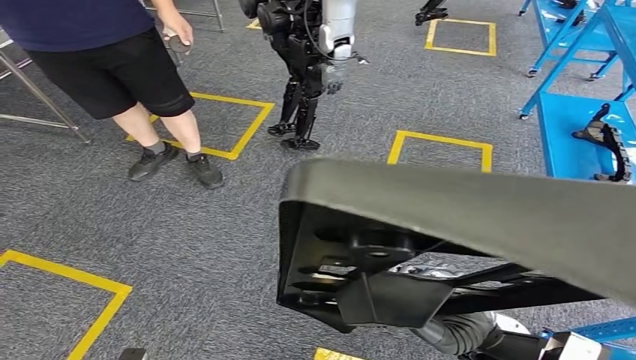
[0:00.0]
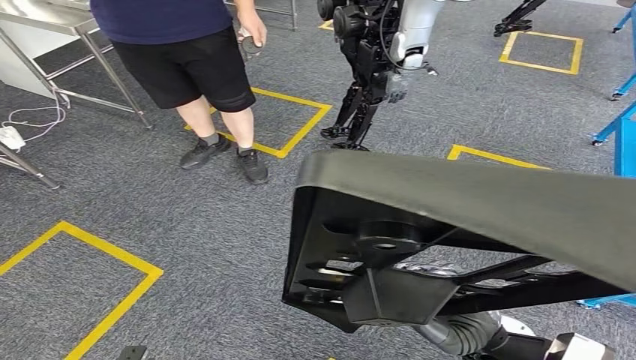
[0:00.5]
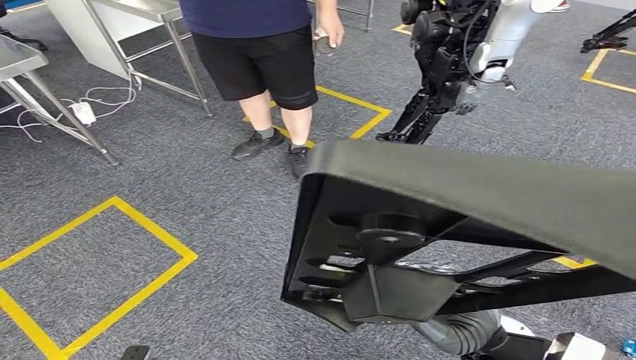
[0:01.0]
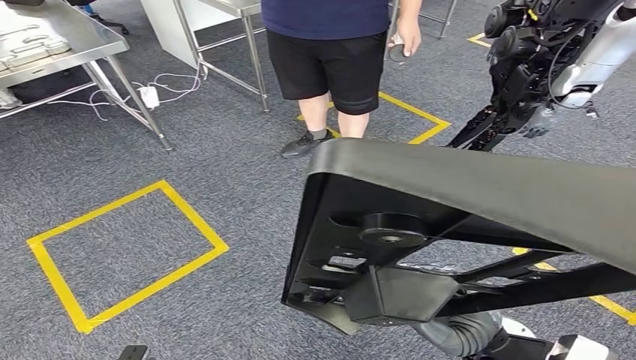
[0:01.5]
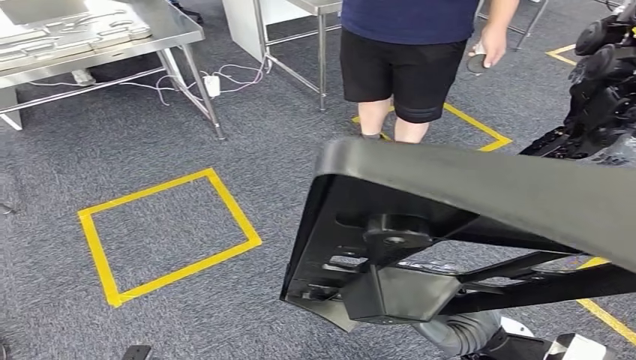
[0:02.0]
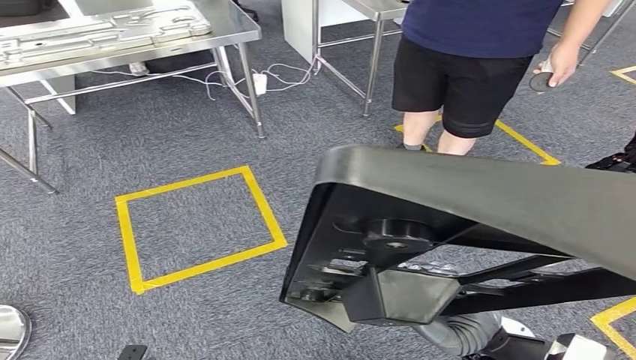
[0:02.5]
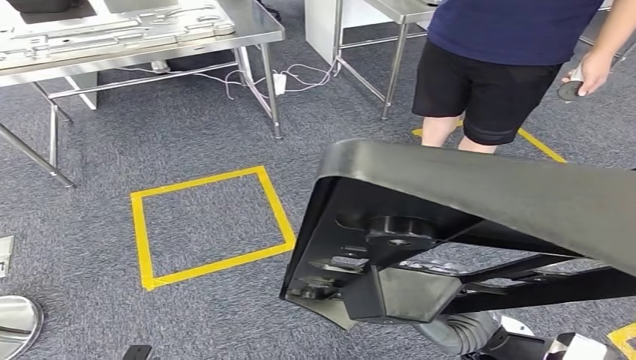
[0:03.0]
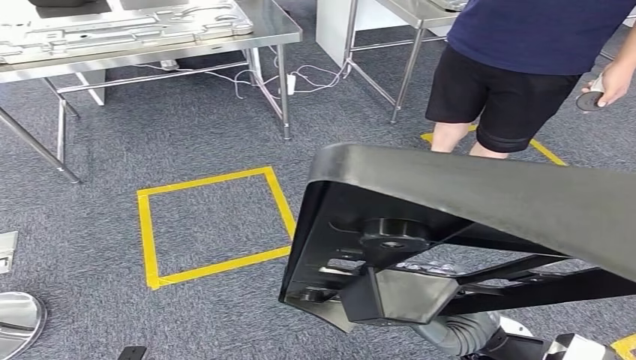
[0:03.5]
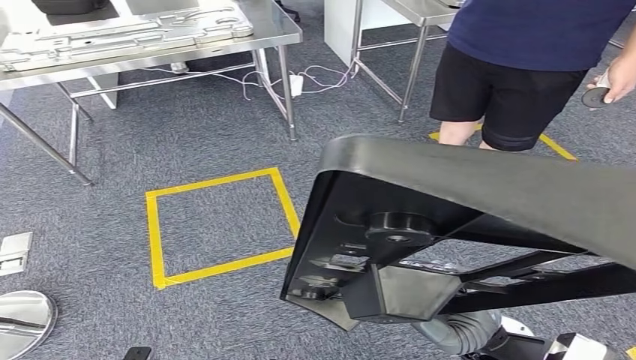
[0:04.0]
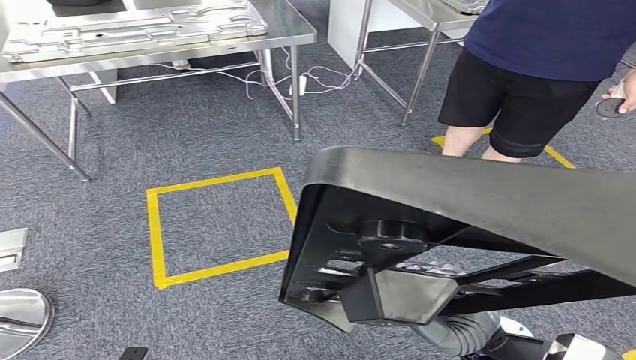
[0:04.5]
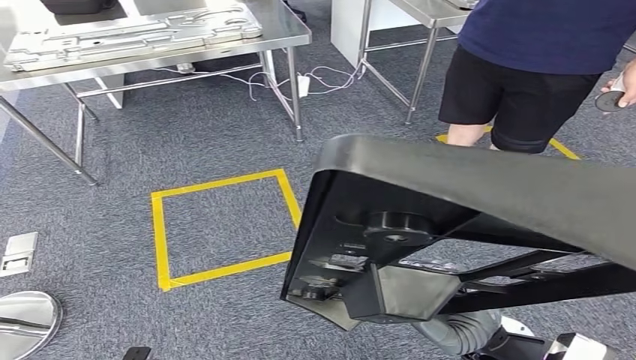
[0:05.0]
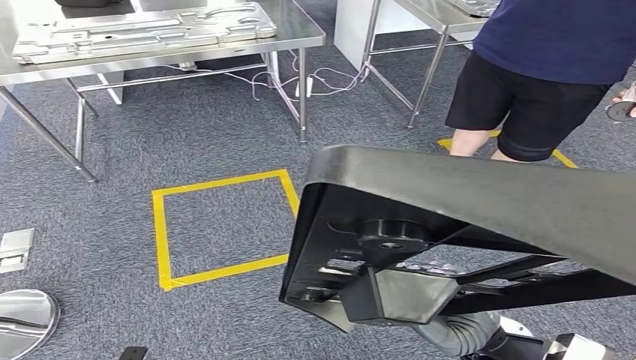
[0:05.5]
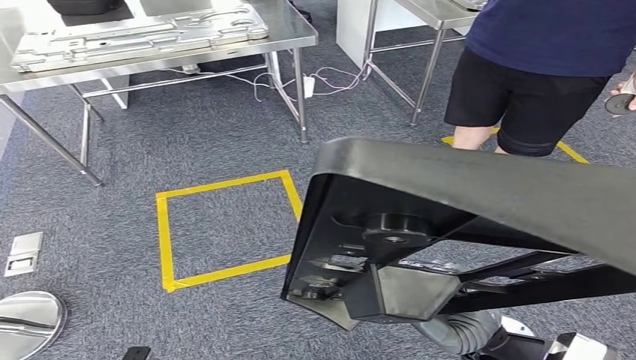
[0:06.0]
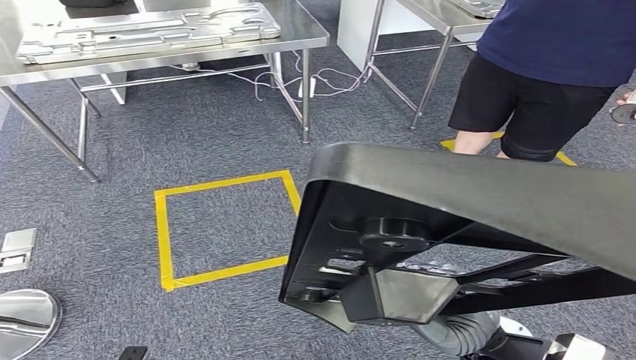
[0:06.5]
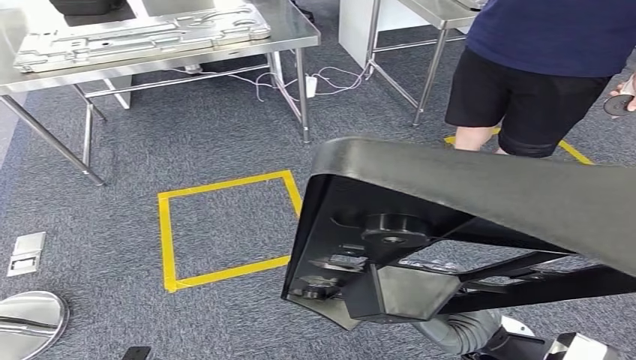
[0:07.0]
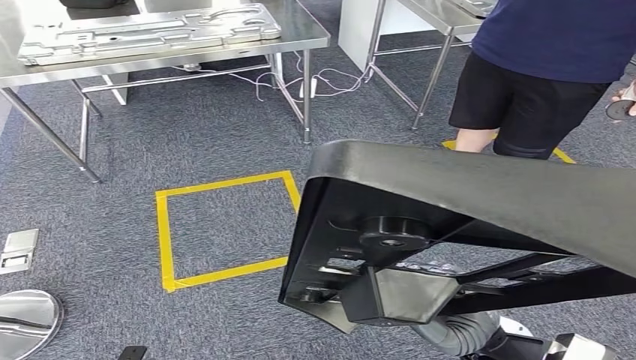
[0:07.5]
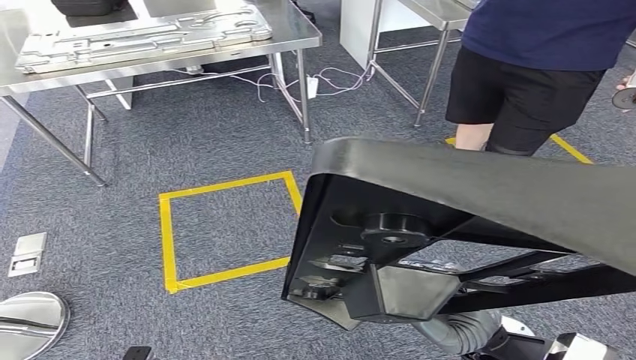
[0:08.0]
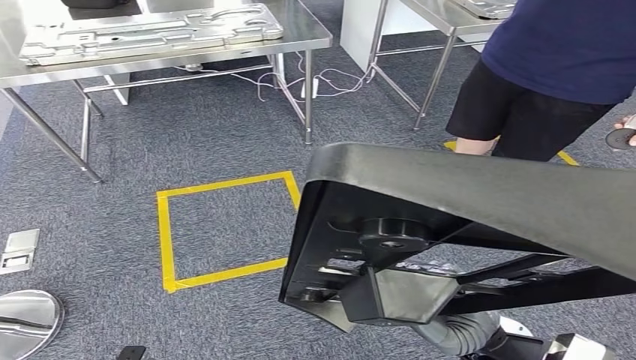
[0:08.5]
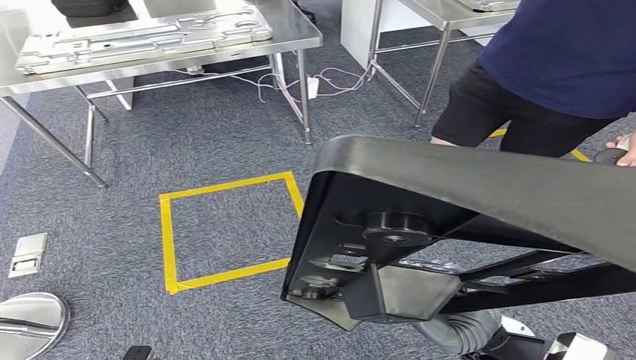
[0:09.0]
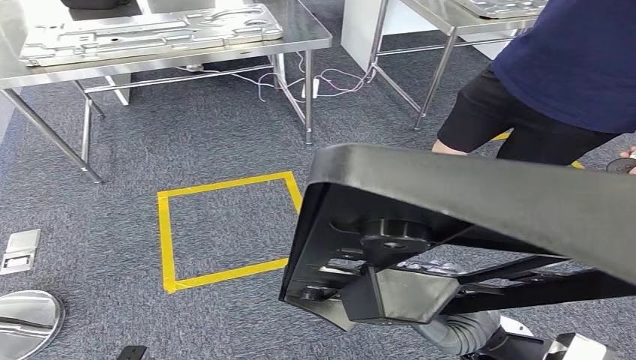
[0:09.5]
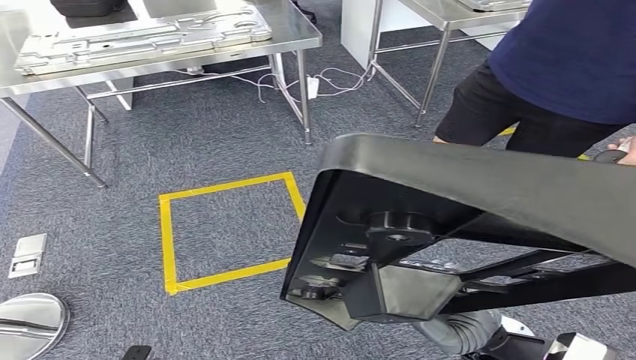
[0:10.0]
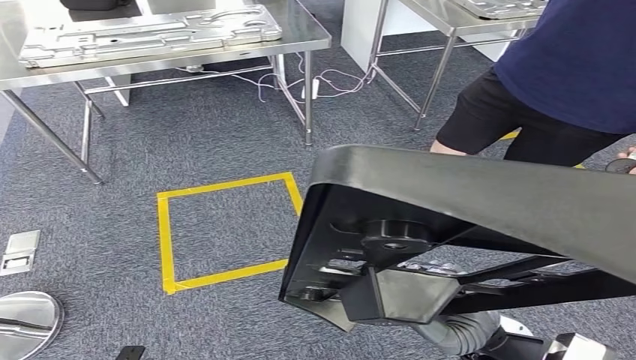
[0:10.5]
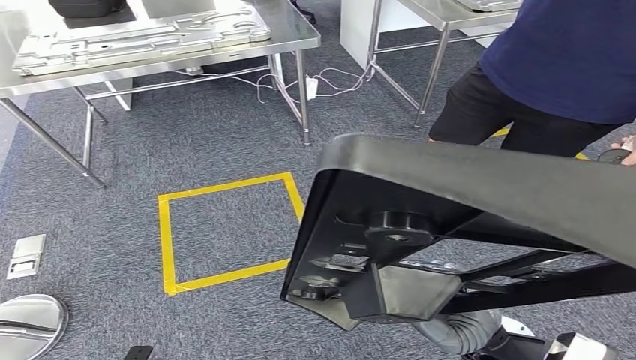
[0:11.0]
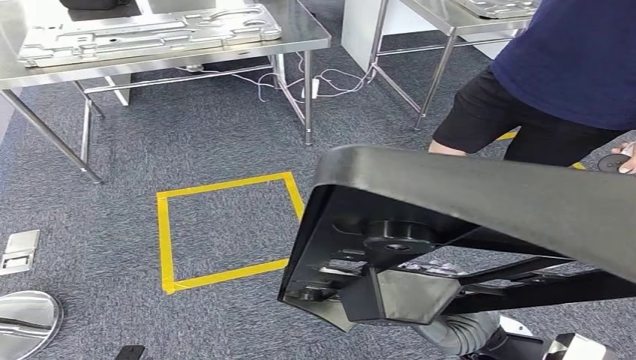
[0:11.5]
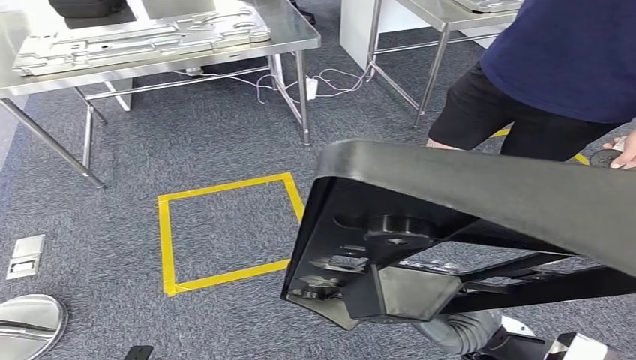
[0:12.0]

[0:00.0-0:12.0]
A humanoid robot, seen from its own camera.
0:06.0 to 0:12.0: The two hands keep their place.

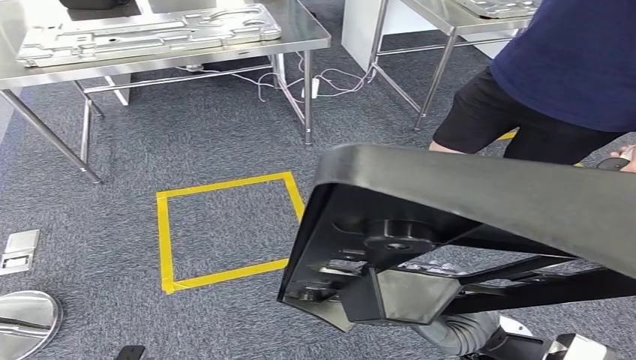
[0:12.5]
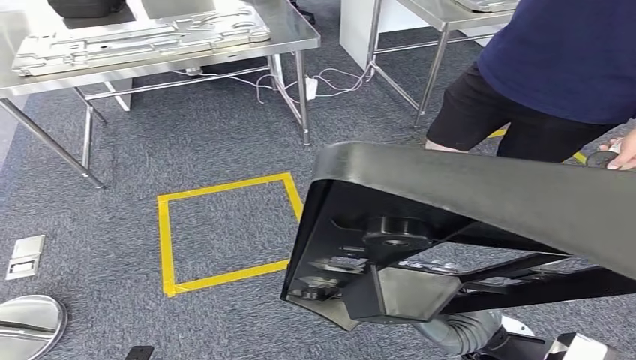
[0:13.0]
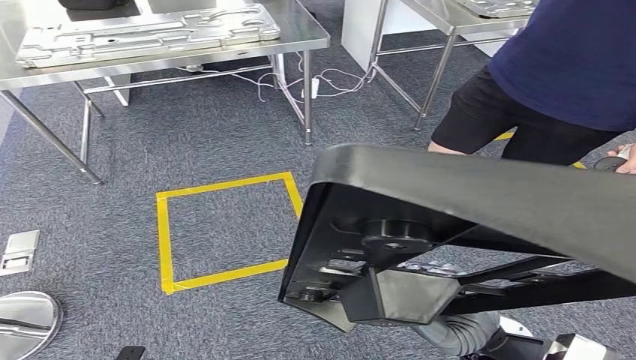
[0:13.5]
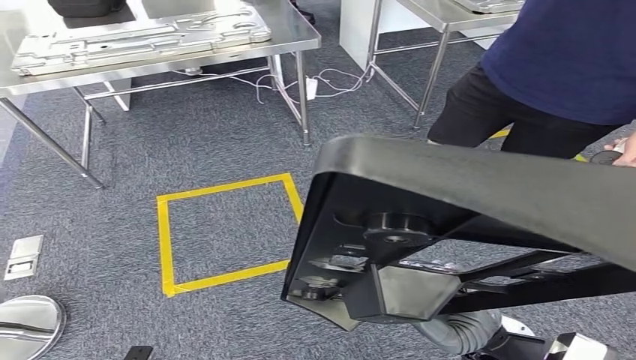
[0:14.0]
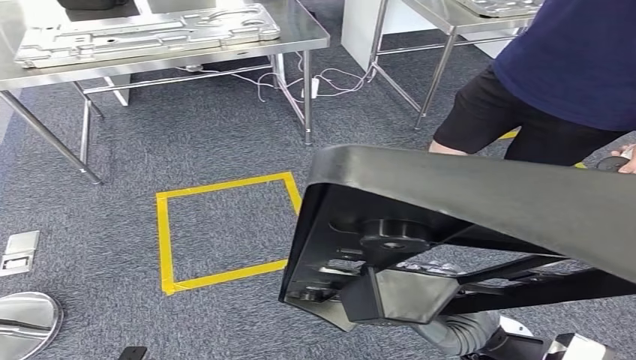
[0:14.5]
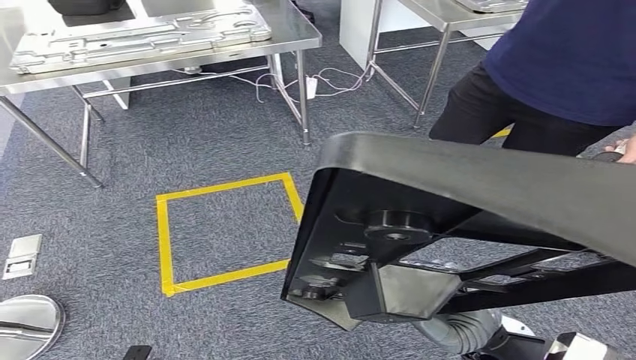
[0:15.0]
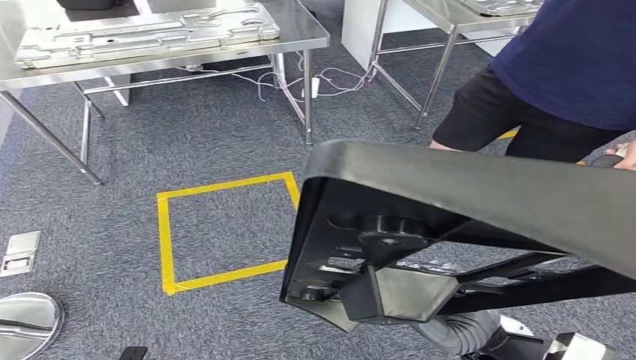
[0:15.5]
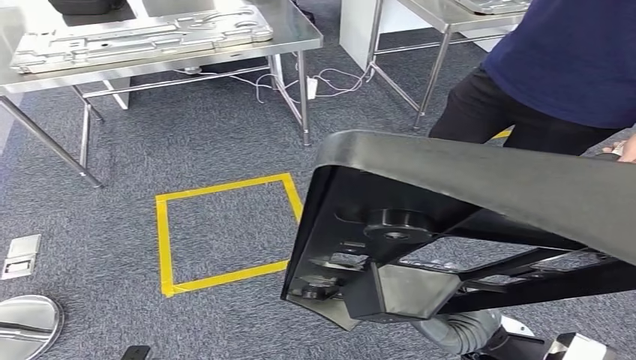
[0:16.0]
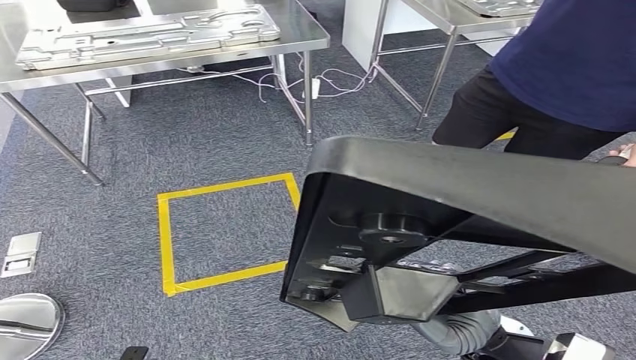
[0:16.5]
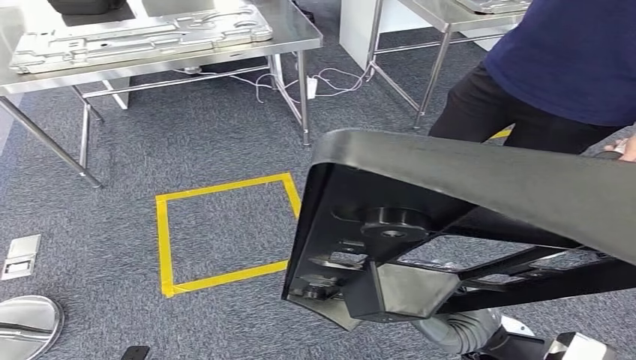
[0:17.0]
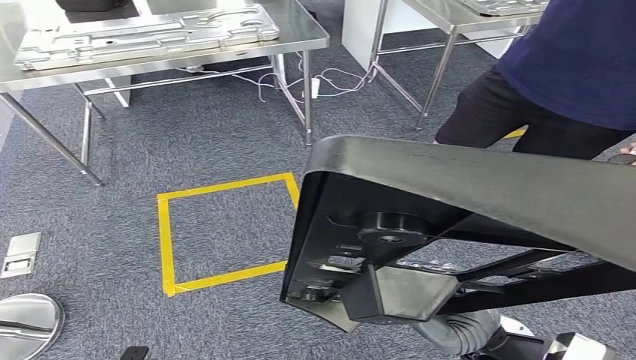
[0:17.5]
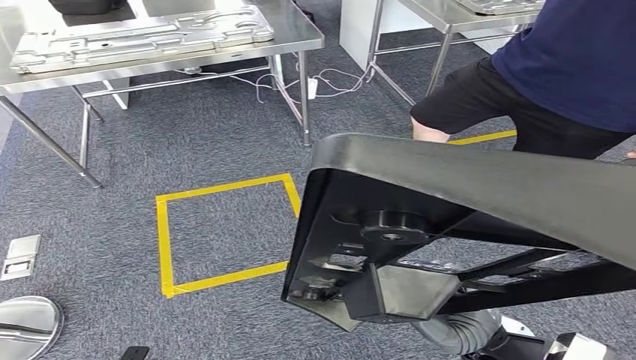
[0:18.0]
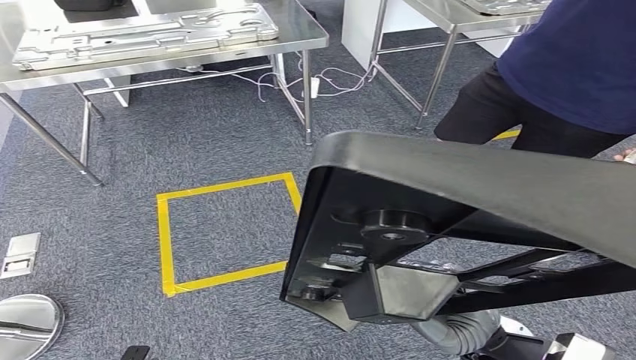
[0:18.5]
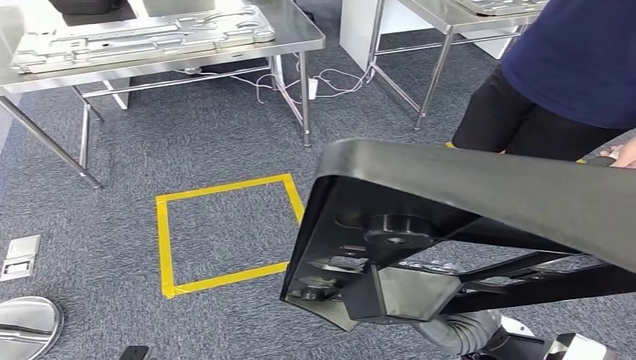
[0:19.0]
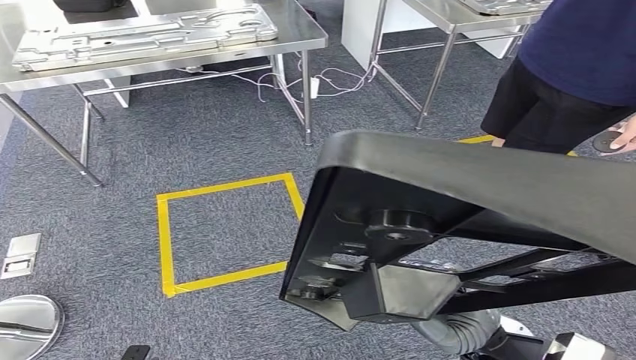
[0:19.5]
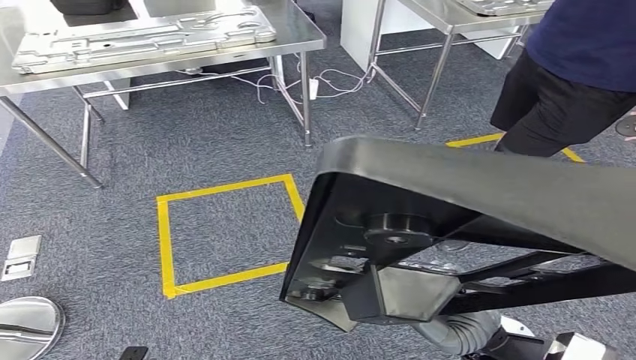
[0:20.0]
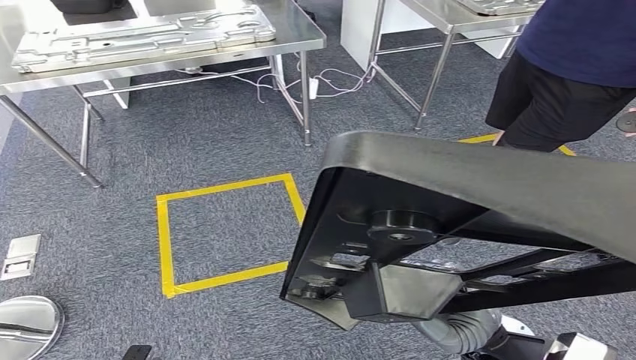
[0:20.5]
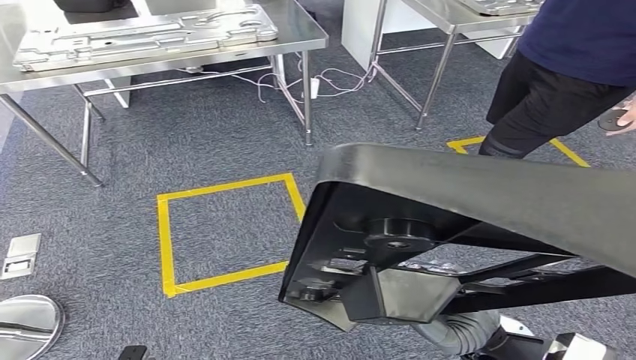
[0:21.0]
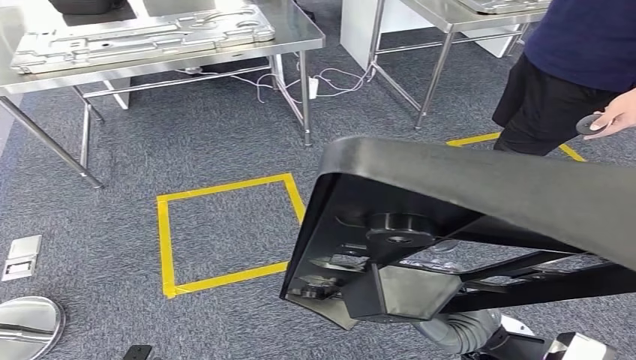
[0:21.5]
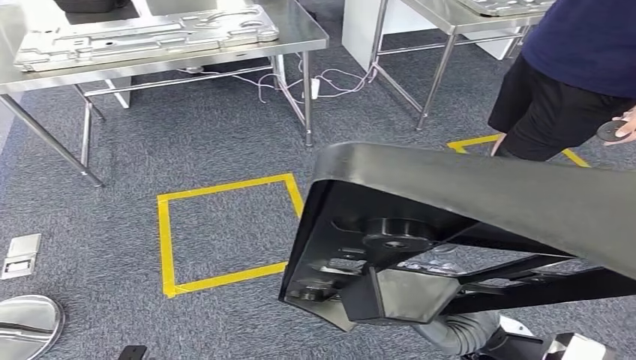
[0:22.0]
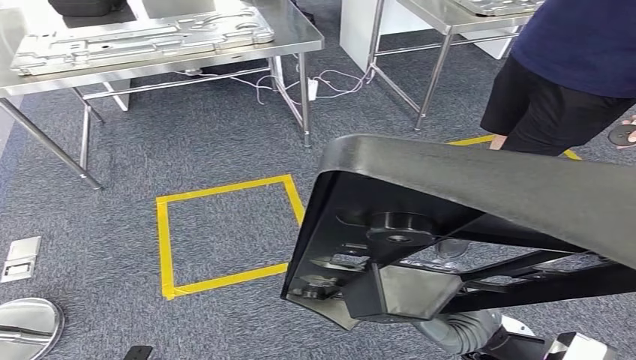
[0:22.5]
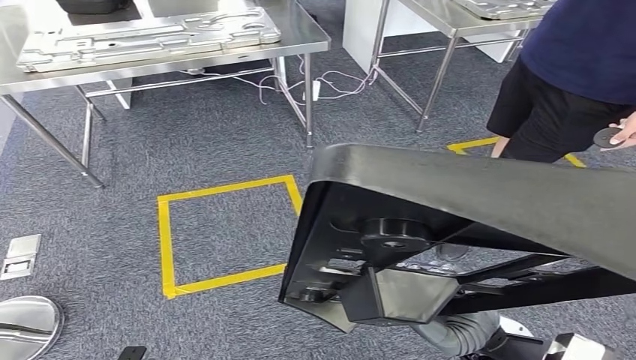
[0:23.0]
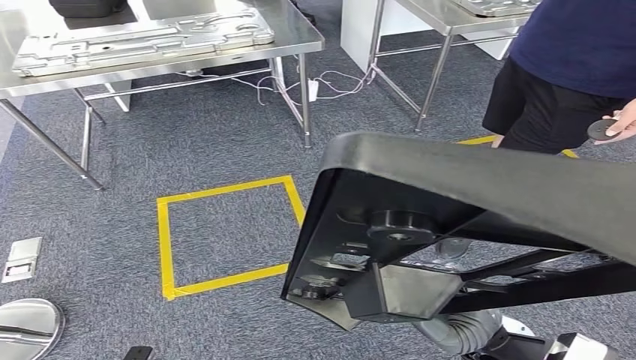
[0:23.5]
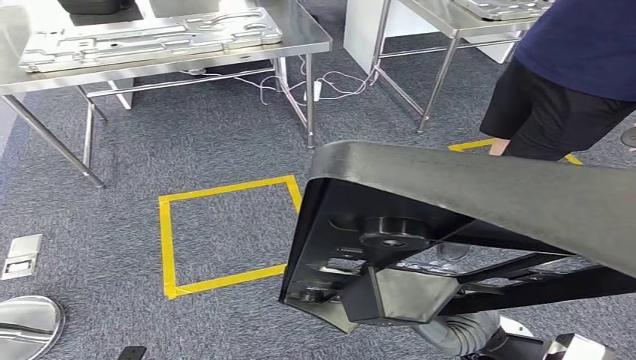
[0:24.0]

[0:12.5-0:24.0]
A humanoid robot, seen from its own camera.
0:12.5 to 0:24.0: Both hands stay put.
